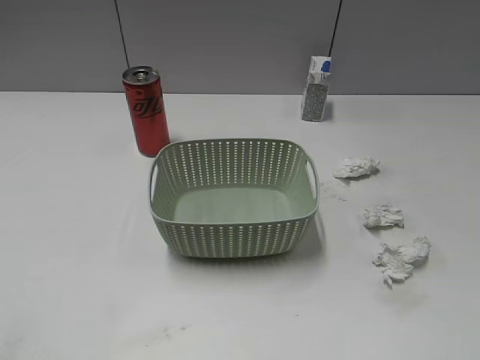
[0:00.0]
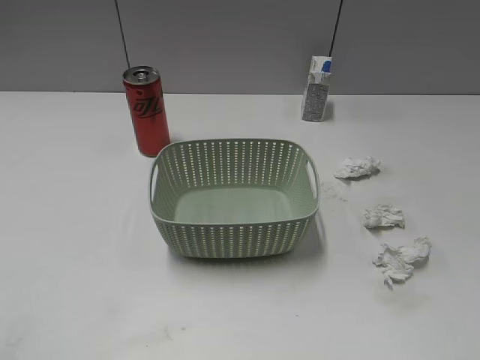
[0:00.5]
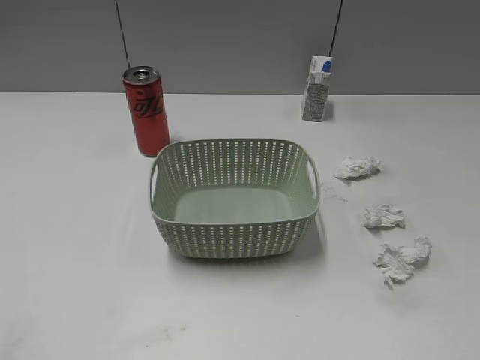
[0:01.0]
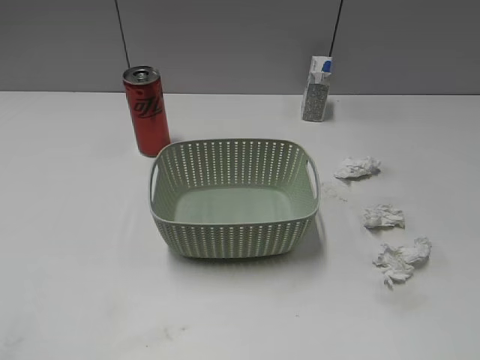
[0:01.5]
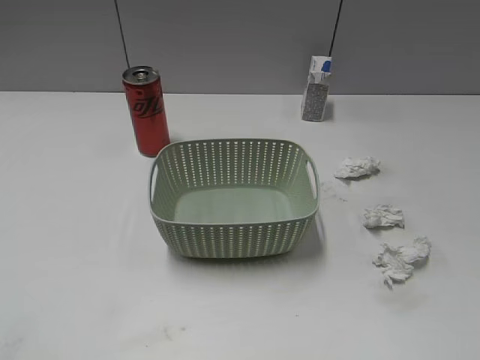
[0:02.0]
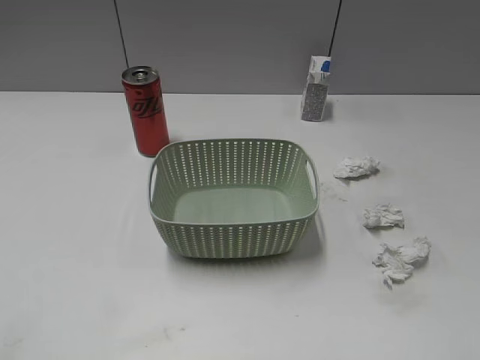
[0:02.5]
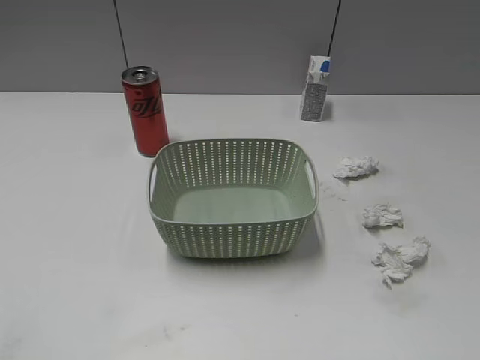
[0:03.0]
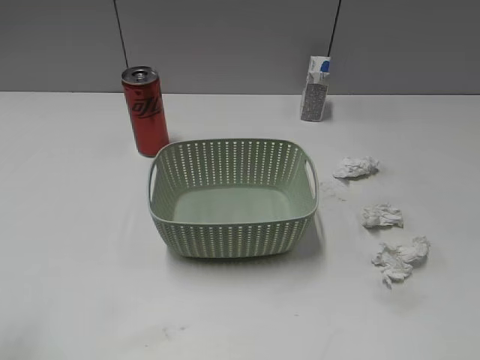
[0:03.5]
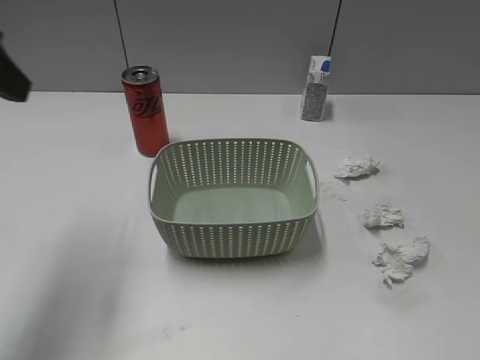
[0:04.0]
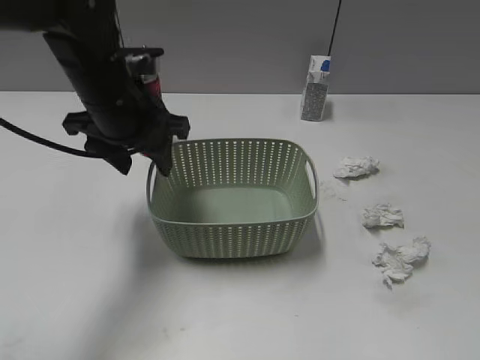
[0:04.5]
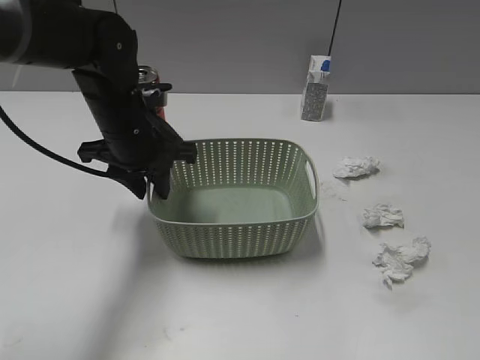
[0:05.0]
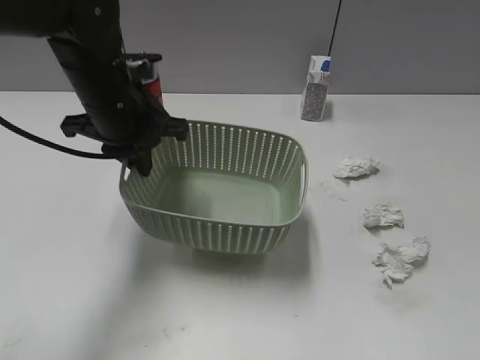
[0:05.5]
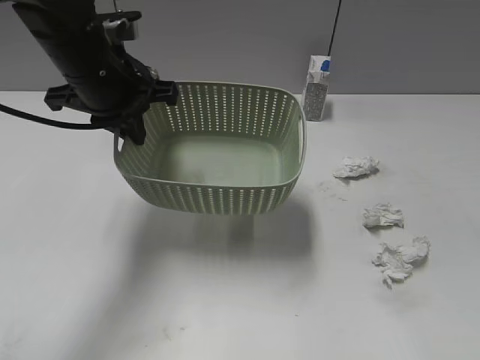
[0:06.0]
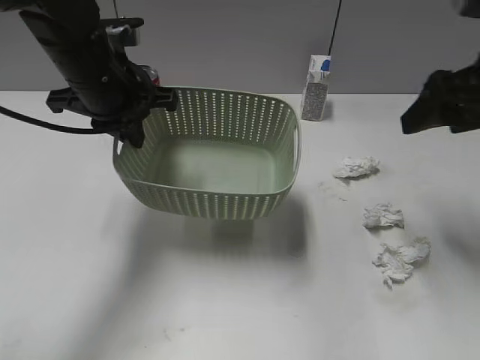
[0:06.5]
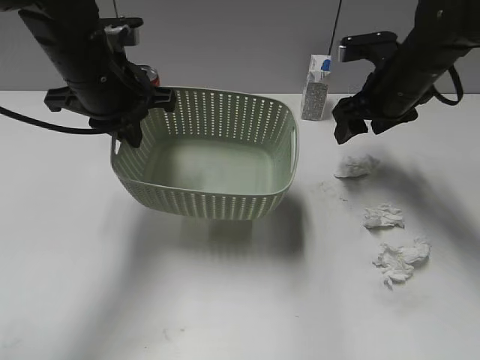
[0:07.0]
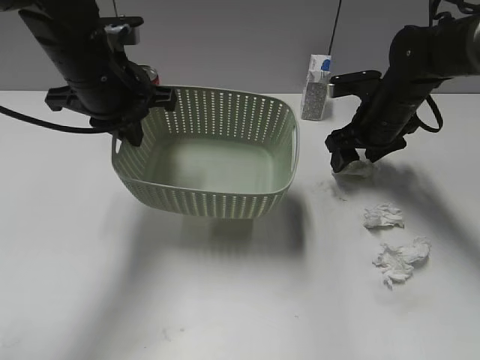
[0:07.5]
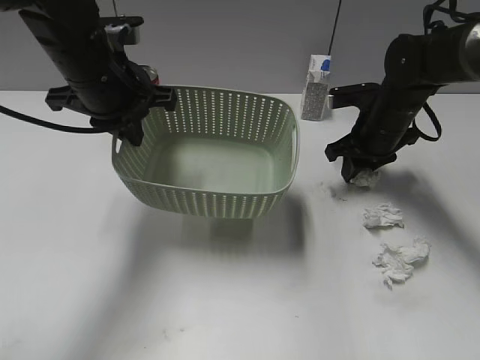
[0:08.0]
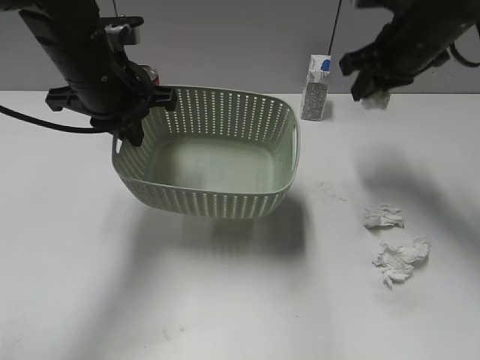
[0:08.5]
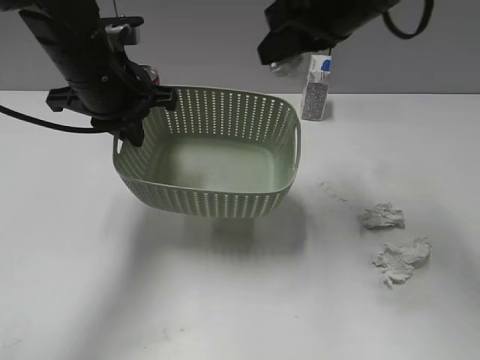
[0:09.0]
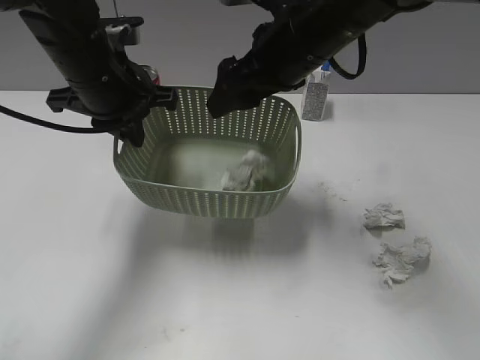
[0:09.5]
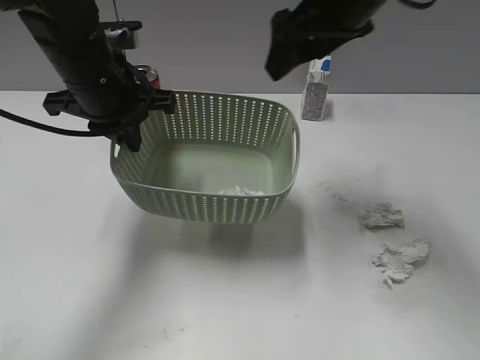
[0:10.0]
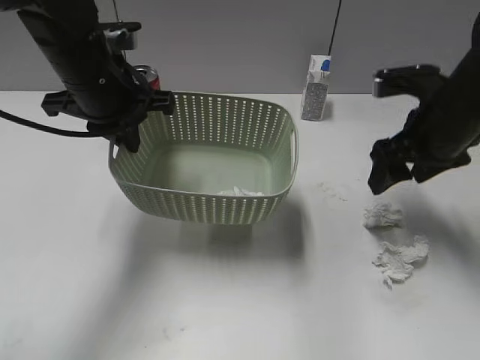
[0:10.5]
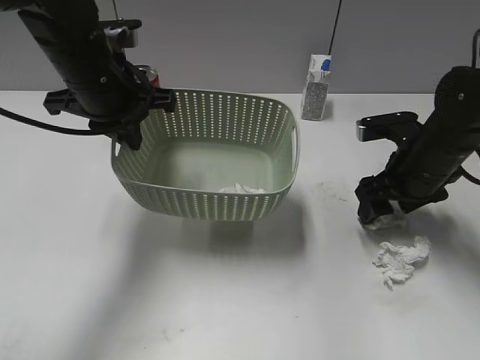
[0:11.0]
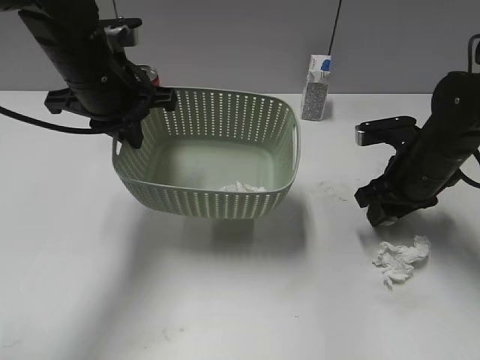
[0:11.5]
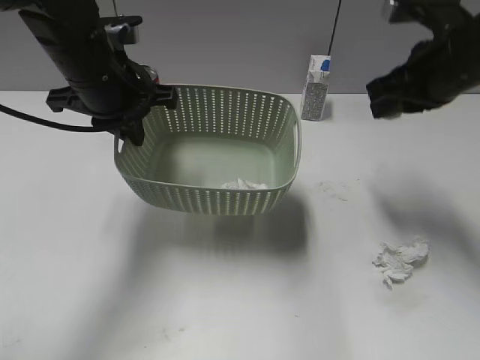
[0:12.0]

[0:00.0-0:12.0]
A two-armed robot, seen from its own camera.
Step, 0:02.0 to 0:05.0: Grasp the basket with left gripper.
Step, 0:05.5 to 0:06.0: Lift the basket with left gripper.
Step, 0:06.5 to 0:08.0: Grasp the waste paper with right gripper.
Step, 0:08.5 to 0:09.5: Place the waste paper in the basket with right gripper.
Step, 0:10.0 to 0:11.5: Grasp the waste paper with right gripper.
0:02.0 to 0:04.0: The left gripper heads forward, covering some 25 cm.
0:04.0 to 0:06.0: The left gripper shifts about 20 cm to the right, forward and downward, and closes; the right gripper goes some 5 cm forward.
0:06.0 to 0:08.0: The right gripper heads forward and downward, covering approximately 40 cm, and closes up.
0:08.0 to 0:10.0: The right gripper goes up and down, roughly 20 cm each way, reversing 2 times, and opens up.
0:10.0 to 0:12.0: The right gripper moves to the right and downward, approximately 15 cm, and closes up.

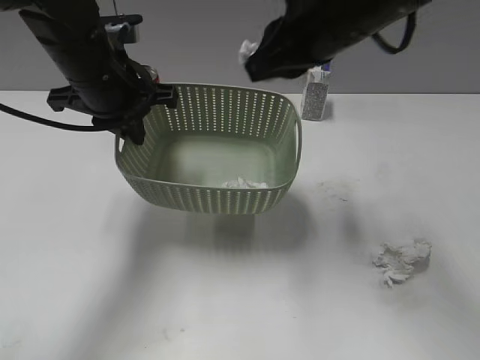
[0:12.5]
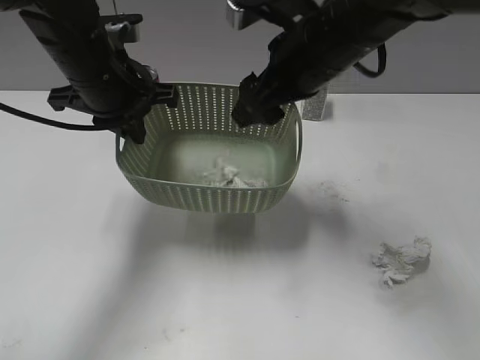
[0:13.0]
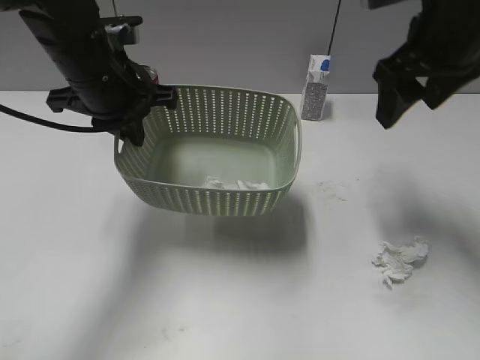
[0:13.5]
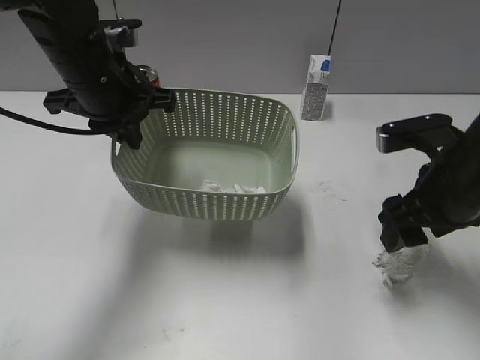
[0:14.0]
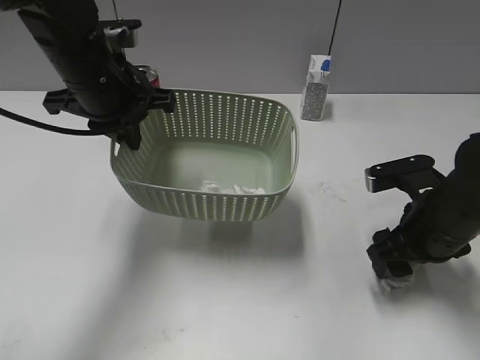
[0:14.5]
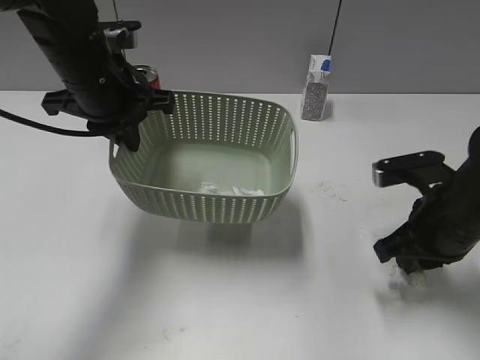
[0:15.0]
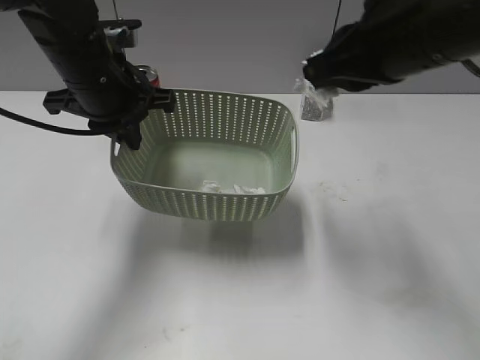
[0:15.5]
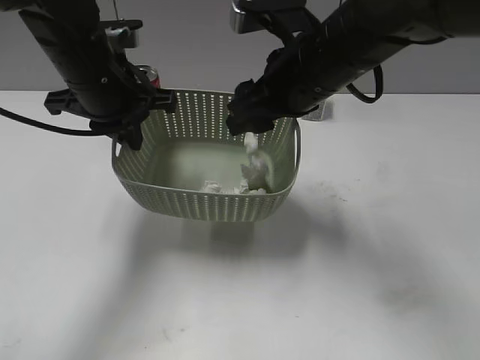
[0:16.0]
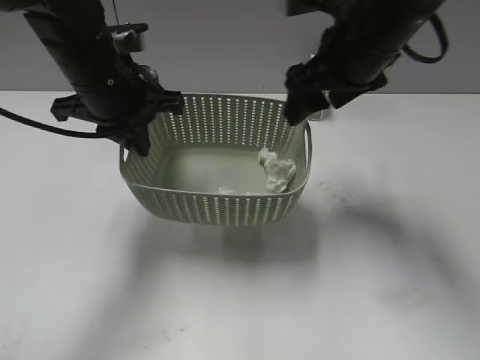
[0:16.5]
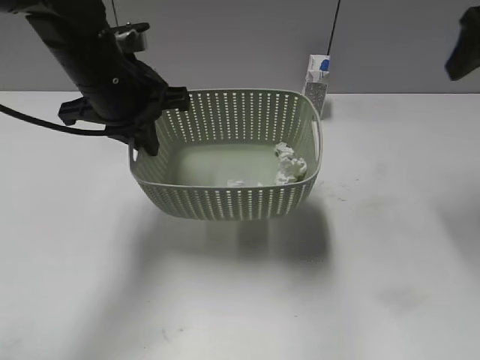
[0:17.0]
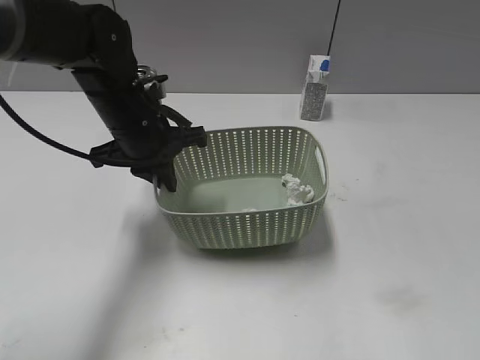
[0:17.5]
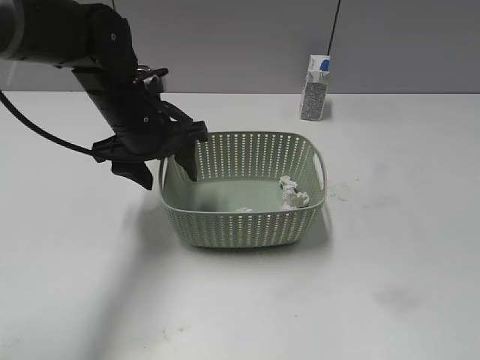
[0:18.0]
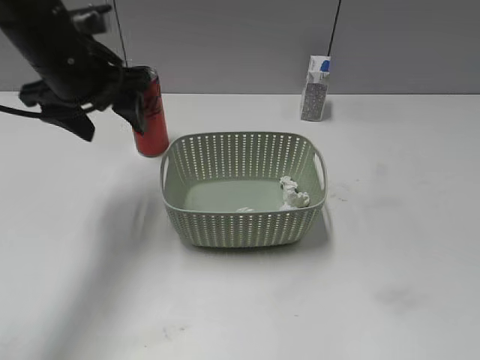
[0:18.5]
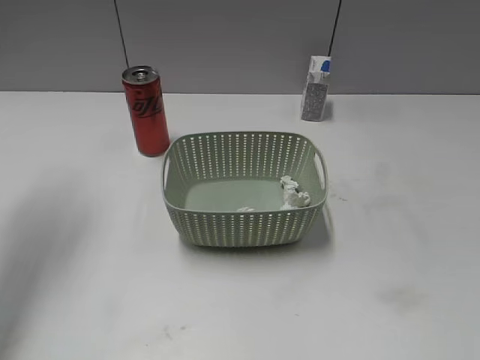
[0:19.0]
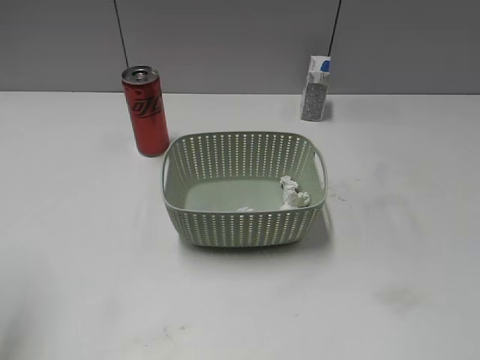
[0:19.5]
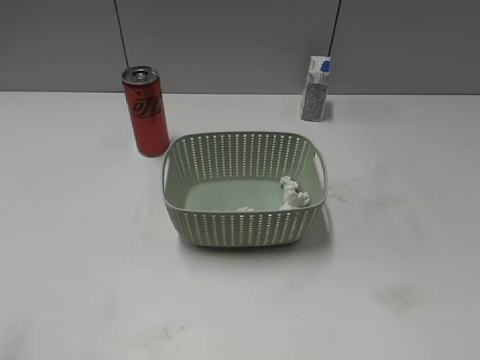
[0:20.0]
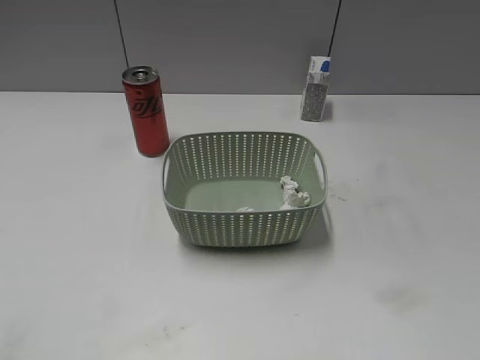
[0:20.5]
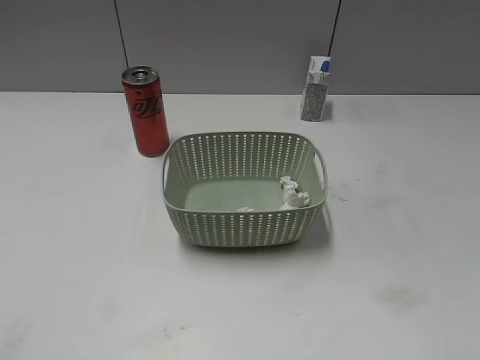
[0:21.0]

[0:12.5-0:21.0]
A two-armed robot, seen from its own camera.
Step, 0:13.5 to 0:14.5: Grasp the waste paper with right gripper.
Step, 0:15.0 to 0:16.0: Place the waste paper in the basket with right gripper.
0:12.5 to 0:14.5: The right gripper swings up and down, some 20 cm each way, with 2 reversals, and opens.
0:14.5 to 0:16.5: The right gripper shifts about 20 cm upward, to the left and forward, and closes, then opens again.
0:16.5 to 0:19.0: The left gripper moves to the left and upward, some 20 cm, and opens its fingers. Meanwhile the right gripper moves backward and to the right, approximately 40 cm.
0:19.0 to 0:21.0: The left gripper travels backward by approximately 30 cm.

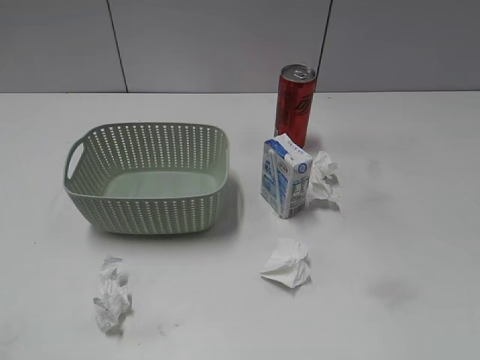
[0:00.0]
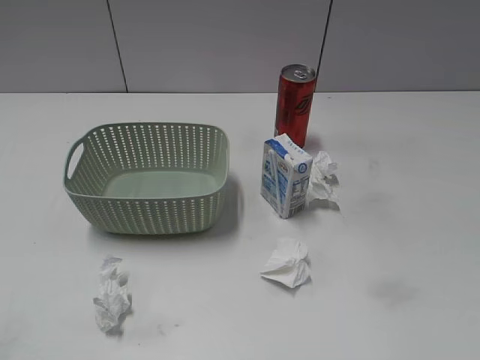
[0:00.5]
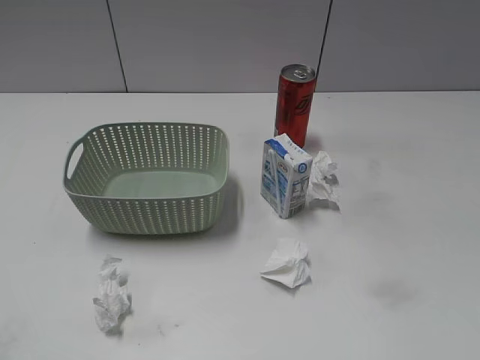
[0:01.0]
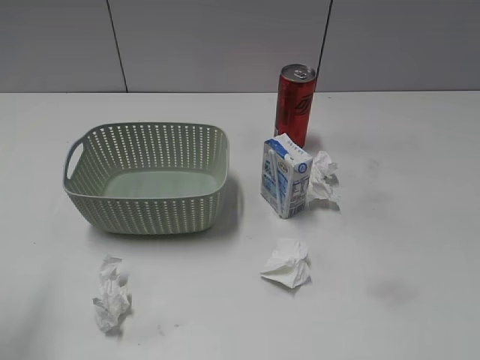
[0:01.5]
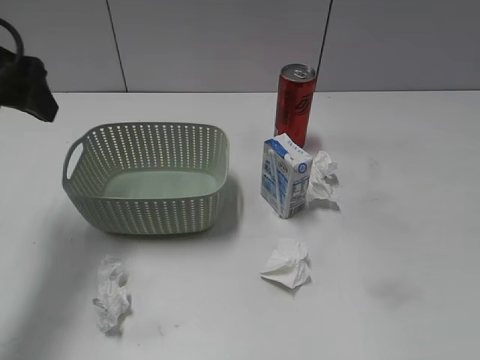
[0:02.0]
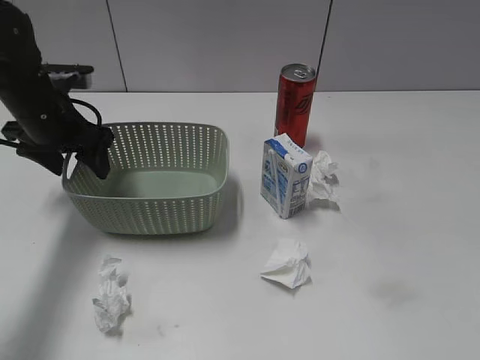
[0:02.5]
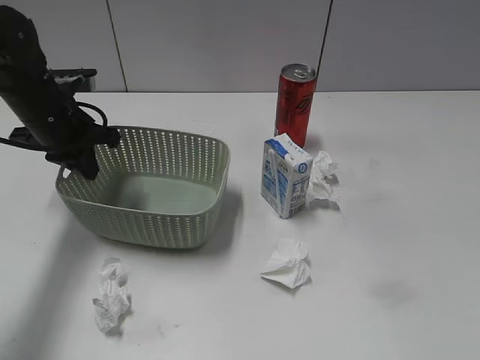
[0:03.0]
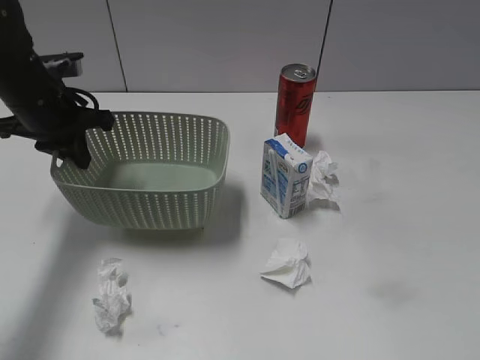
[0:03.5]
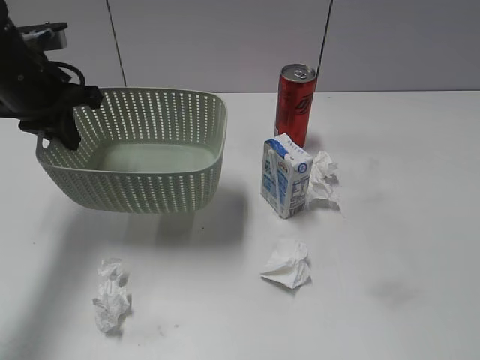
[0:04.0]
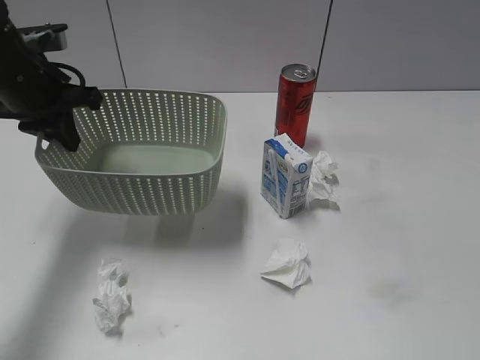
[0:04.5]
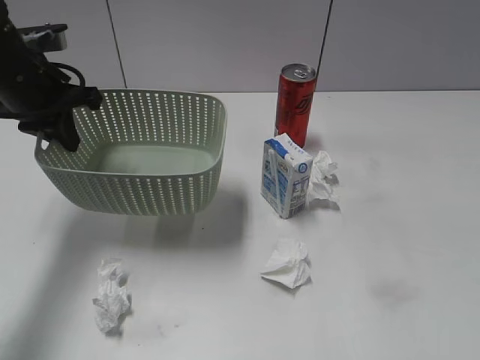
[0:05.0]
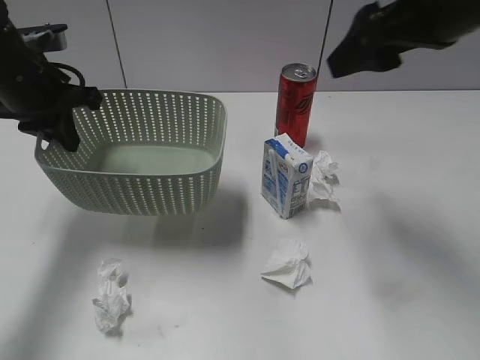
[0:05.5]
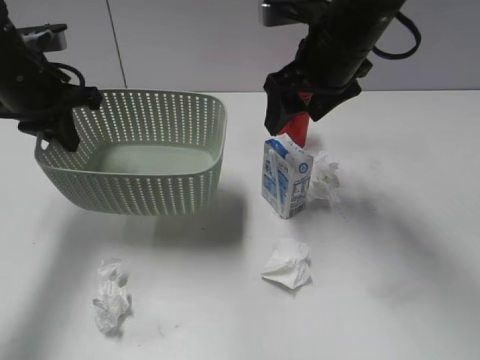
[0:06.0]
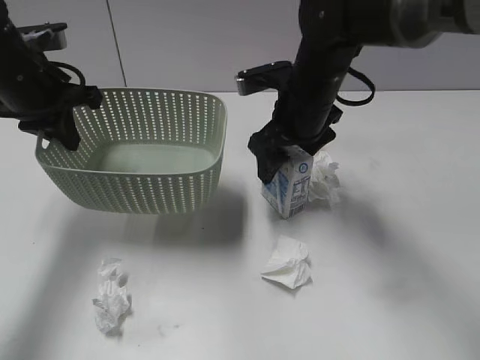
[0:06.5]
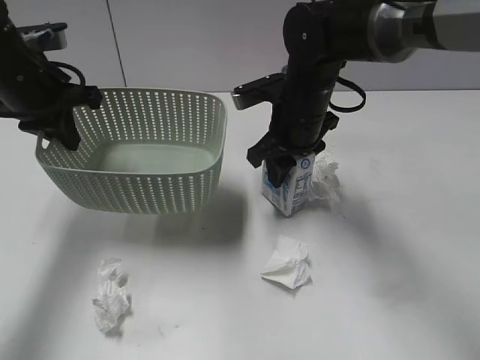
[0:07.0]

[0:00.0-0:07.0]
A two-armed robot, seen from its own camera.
Step, 0:02.0 to 0:03.0: Grasp the basket with left gripper.
Step, 0:03.5 to 0:04.0: Lift the basket with left gripper.
Step, 0:04.5 to 0:07.0: Grasp the milk with right gripper.
0:02.0 to 0:03.5: The left gripper moves downward and forward, about 15 cm, and closes its fingers.
0:03.5 to 0:05.0: The right gripper shifts about 15 cm forward and upward, and opens its fingers.
0:05.0 to 0:07.0: The right gripper travels forward, to the left and downward by some 40 cm, and closes its fingers.
